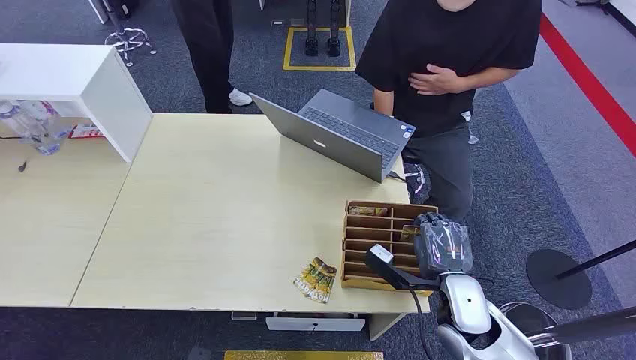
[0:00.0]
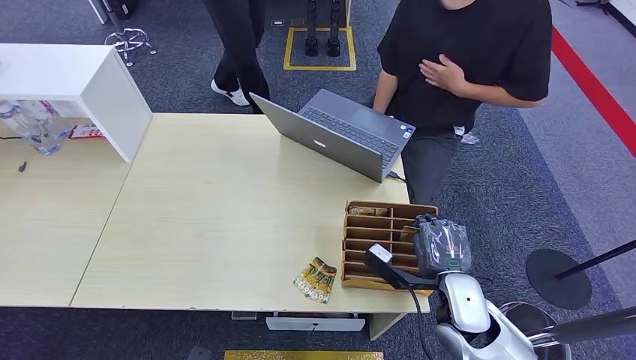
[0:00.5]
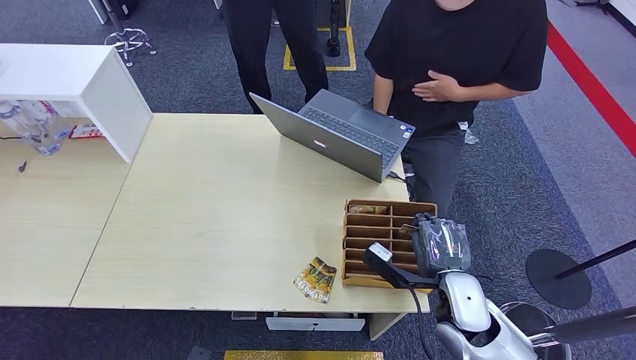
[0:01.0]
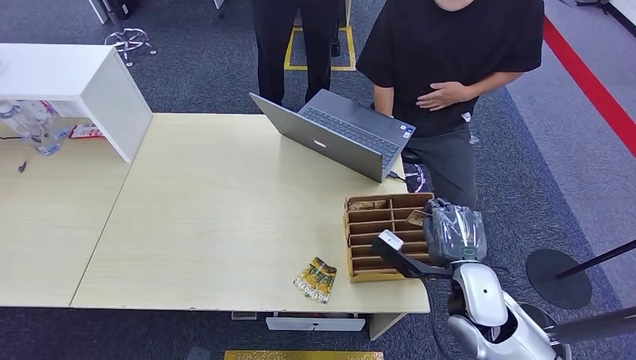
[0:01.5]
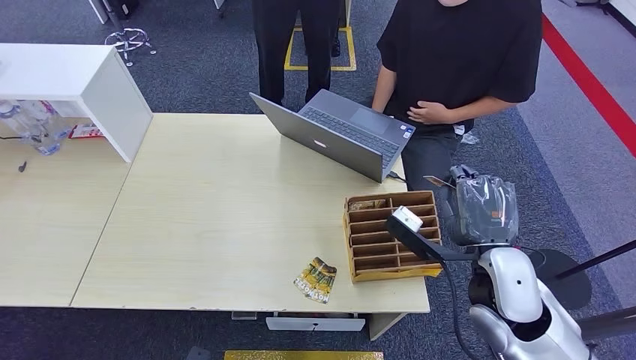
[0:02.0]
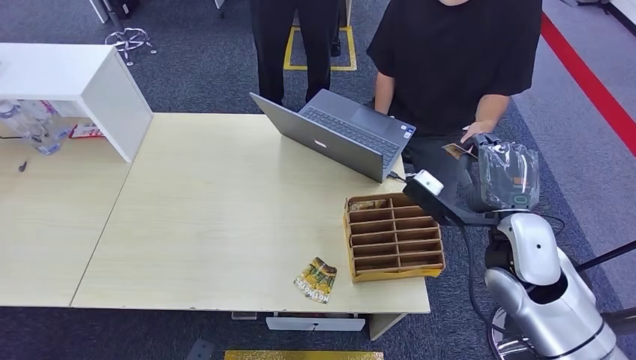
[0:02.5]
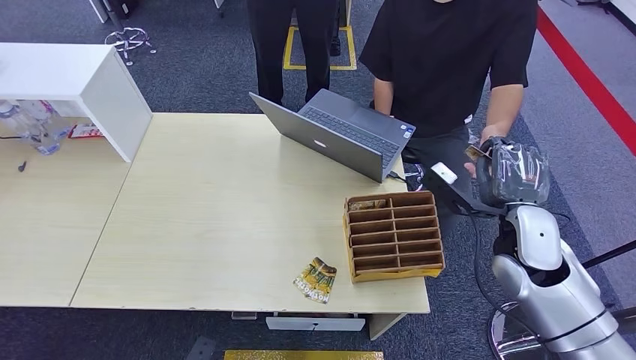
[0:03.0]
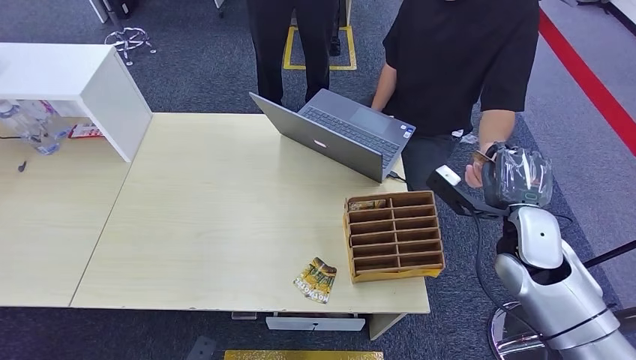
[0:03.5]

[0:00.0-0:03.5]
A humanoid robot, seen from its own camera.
Step, 0:00.0 to 0:02.0: Pick up the key card from the card box.
Step, 0:02.5 to 0:03.0: Hand the key card to the target.
0:02.0 to 0:03.5: The right hand goes some 10 cm to the right and forward.
